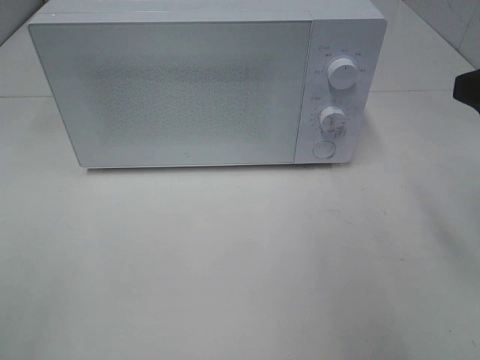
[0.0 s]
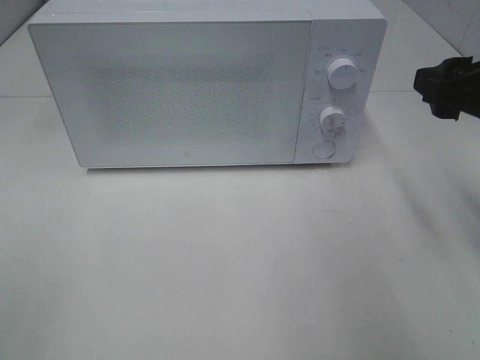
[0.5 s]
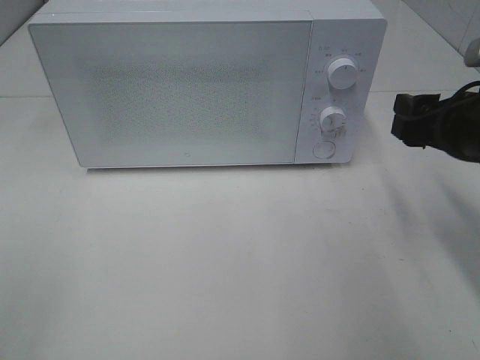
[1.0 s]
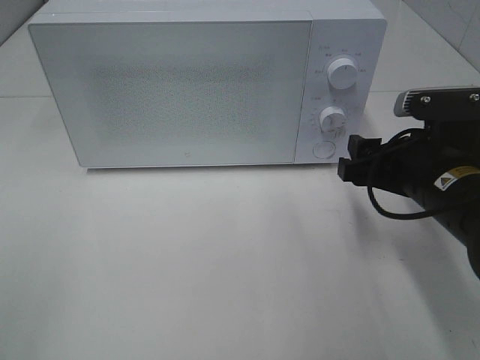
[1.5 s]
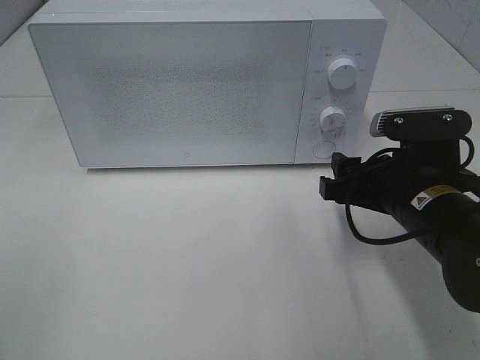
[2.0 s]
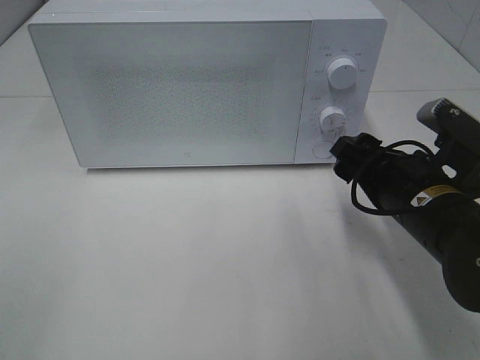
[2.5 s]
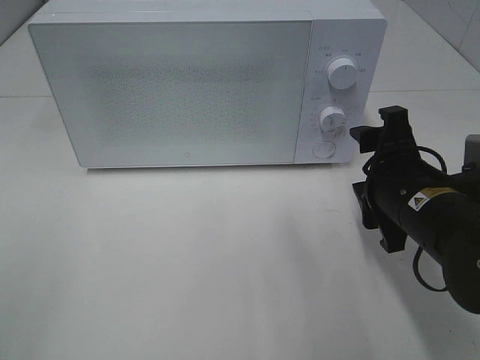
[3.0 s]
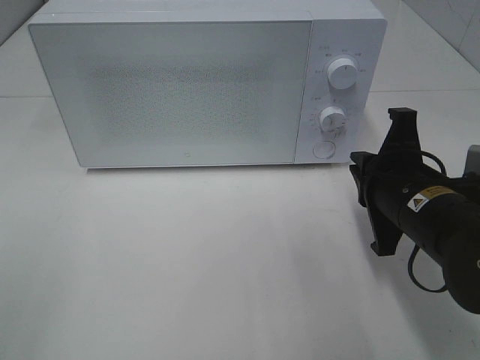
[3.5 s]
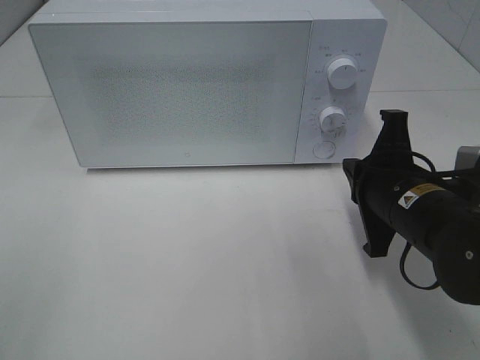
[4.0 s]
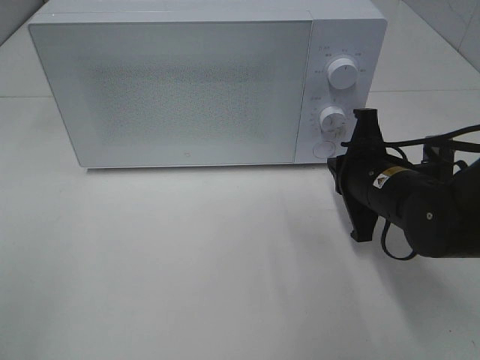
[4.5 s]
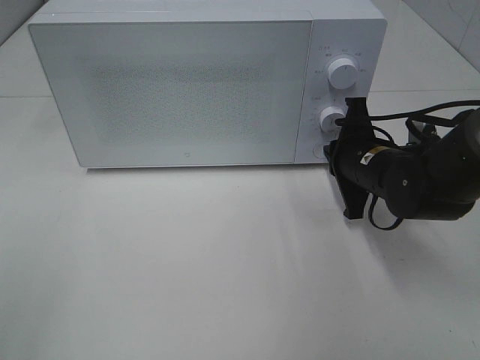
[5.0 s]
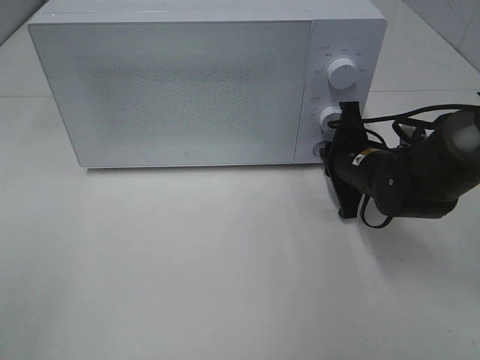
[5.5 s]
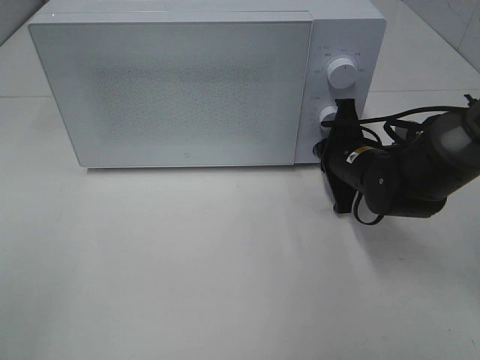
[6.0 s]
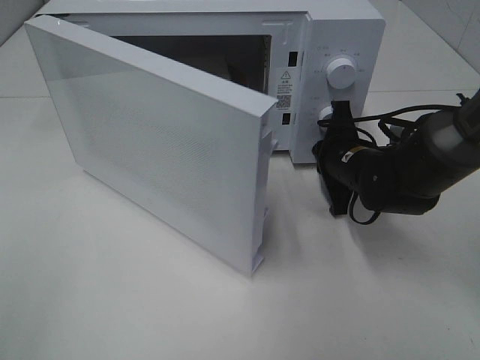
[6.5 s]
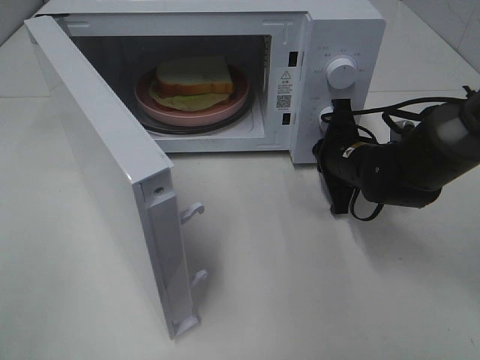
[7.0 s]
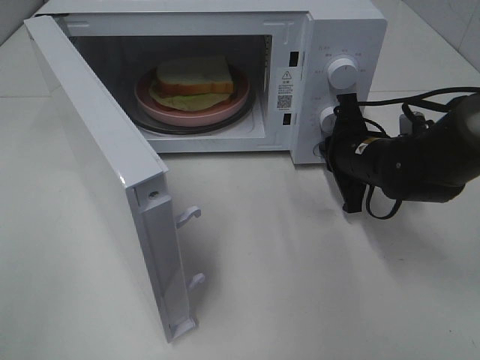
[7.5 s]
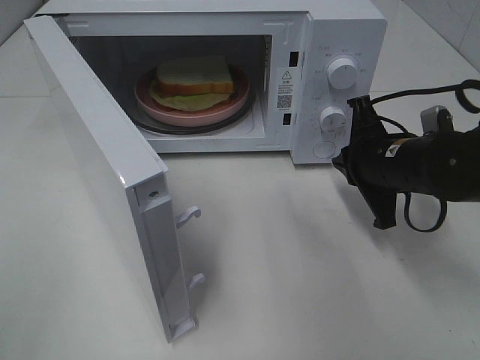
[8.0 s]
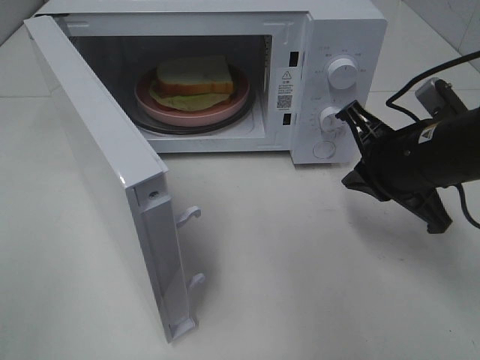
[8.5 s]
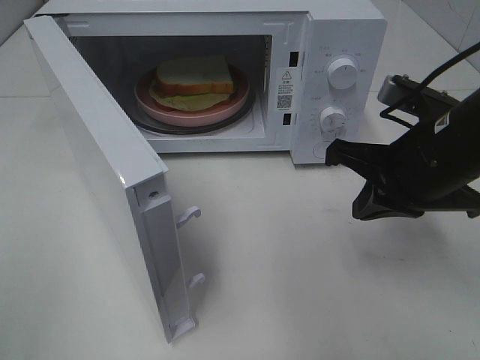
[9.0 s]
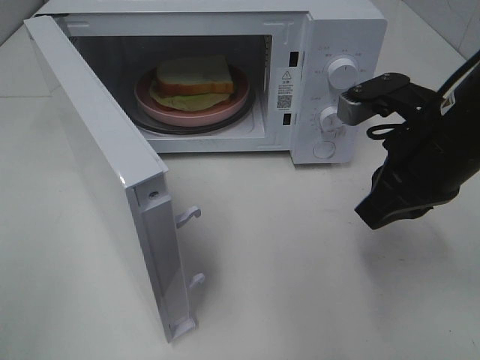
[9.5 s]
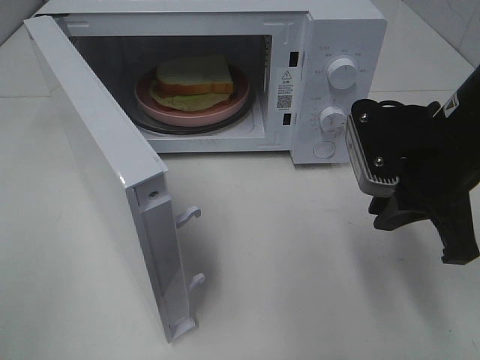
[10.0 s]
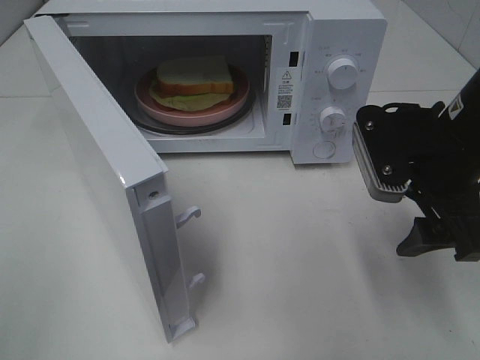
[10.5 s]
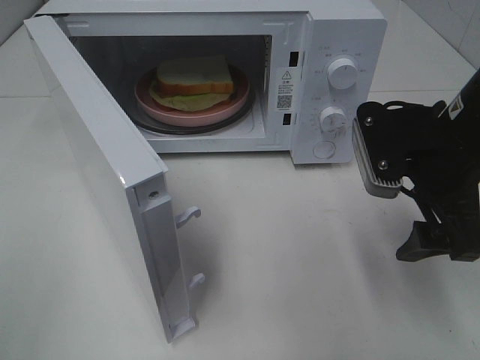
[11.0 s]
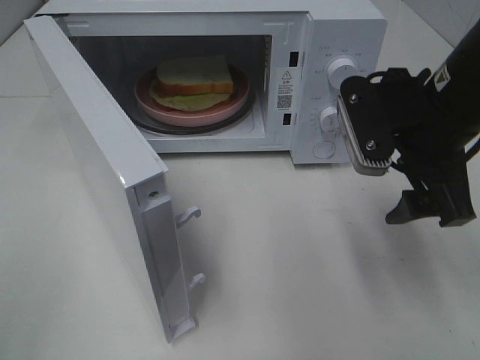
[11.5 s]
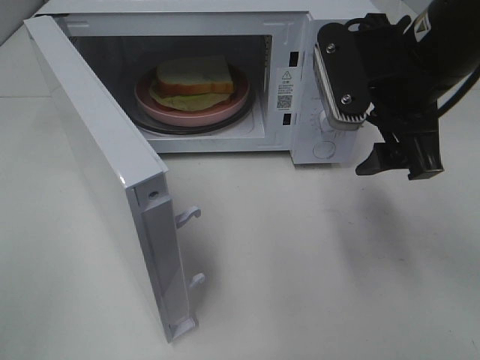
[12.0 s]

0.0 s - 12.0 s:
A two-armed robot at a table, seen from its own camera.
Task of the whole recording: Heat Sandwich.
Step, 0.0 s - 7.5 s: Right hand: press the switch.
0.0 s - 2.0 s: The right gripper moves downward and to the left, approximately 15 cm.
2.0 s - 4.0 s: The right gripper closes its fingers.
4.0 s - 6.0 s: The right gripper goes approximately 10 cm forward.
6.0 s - 8.0 s: The right gripper travels backward by some 5 cm.
8.0 s - 10.0 s: The right gripper is displaced upward and backward by approximately 10 cm.
10.0 s - 12.0 s: The right gripper is displaced upward by roughly 5 cm, and opens up.

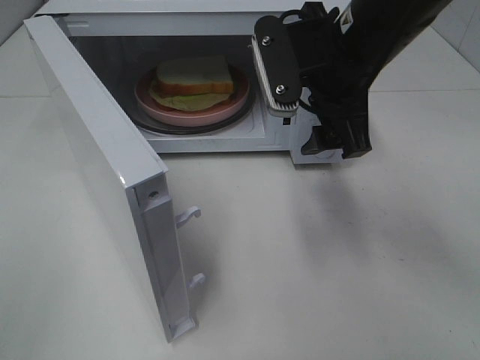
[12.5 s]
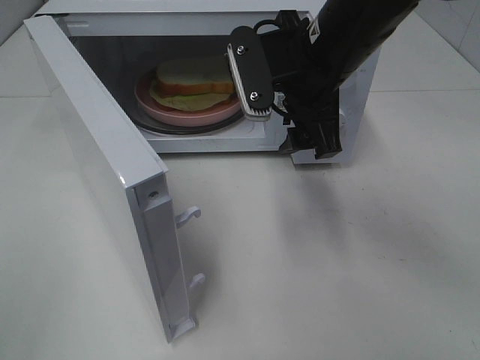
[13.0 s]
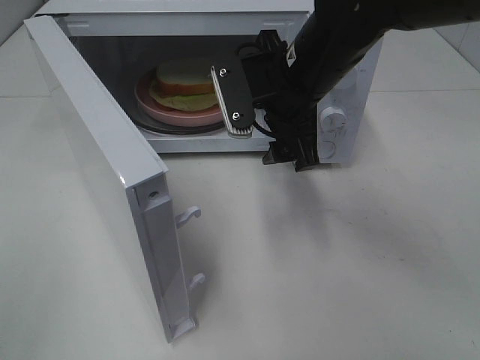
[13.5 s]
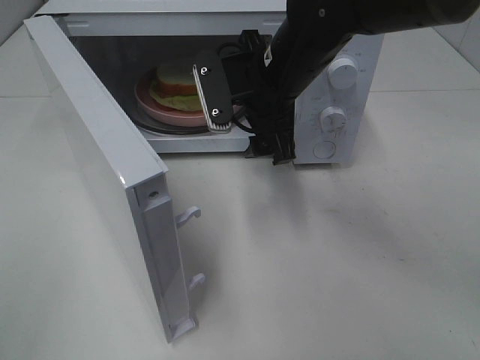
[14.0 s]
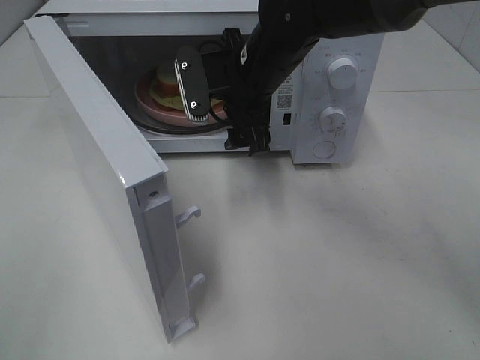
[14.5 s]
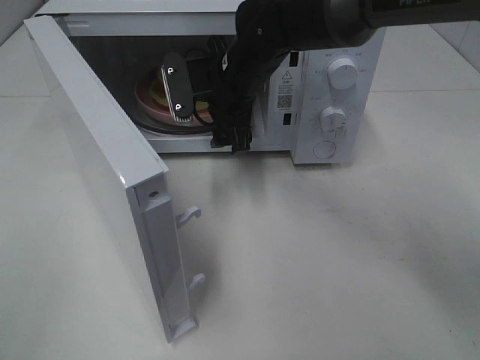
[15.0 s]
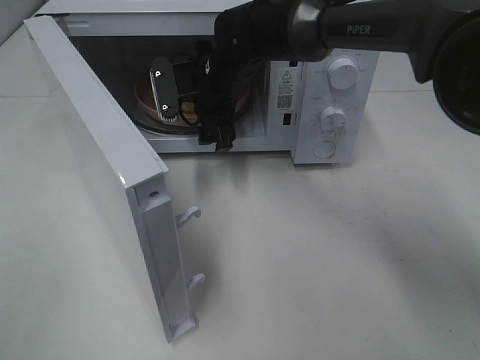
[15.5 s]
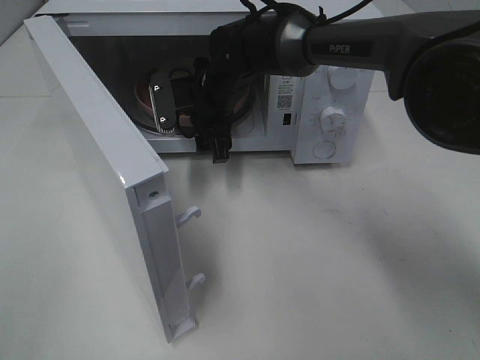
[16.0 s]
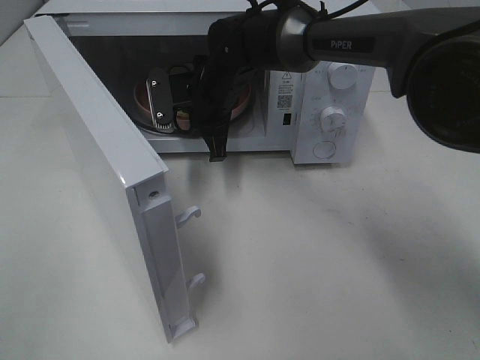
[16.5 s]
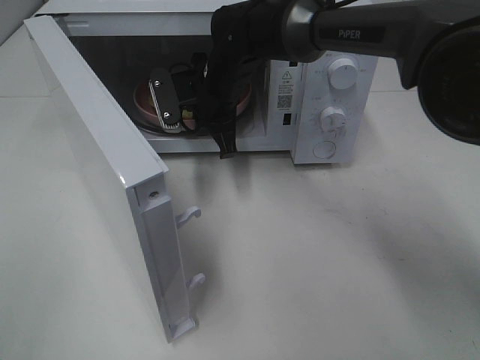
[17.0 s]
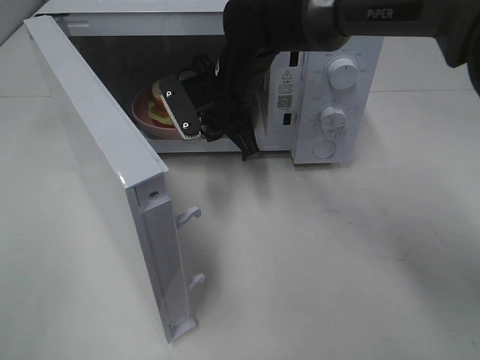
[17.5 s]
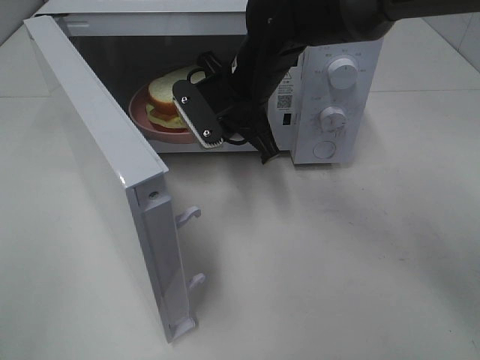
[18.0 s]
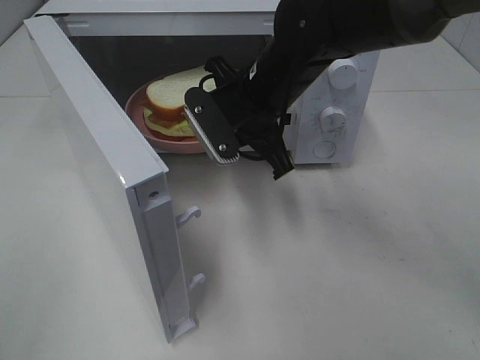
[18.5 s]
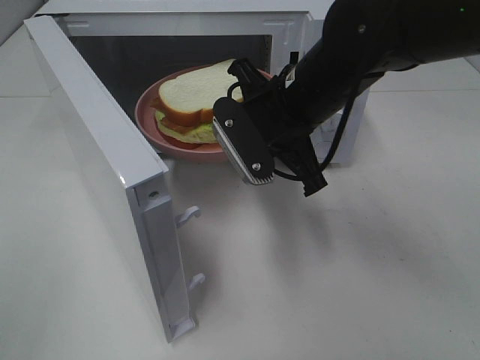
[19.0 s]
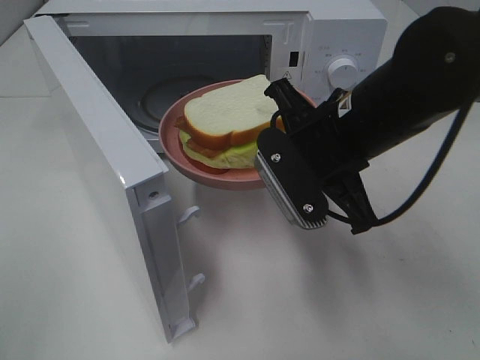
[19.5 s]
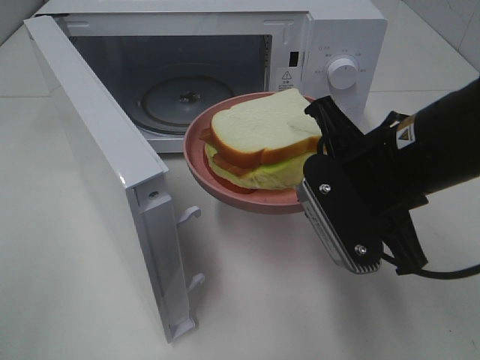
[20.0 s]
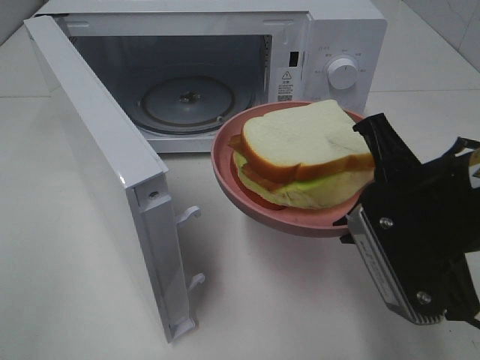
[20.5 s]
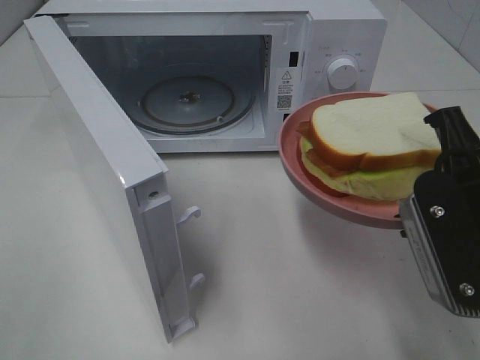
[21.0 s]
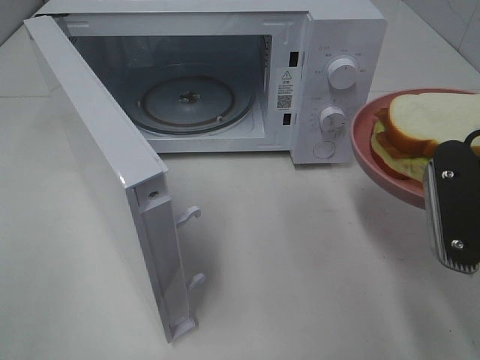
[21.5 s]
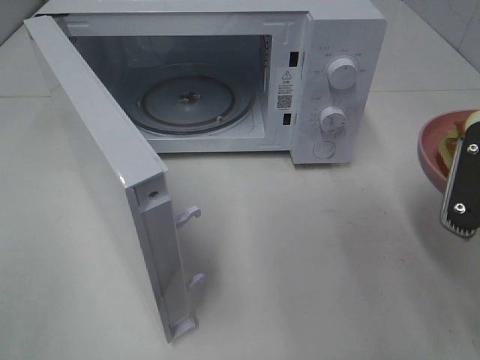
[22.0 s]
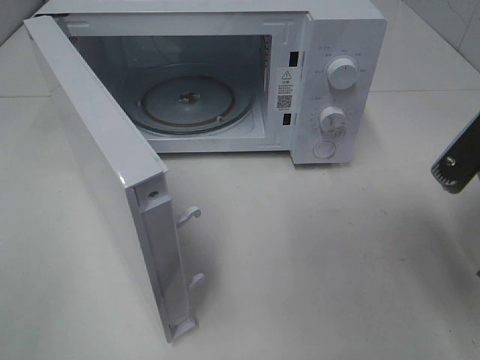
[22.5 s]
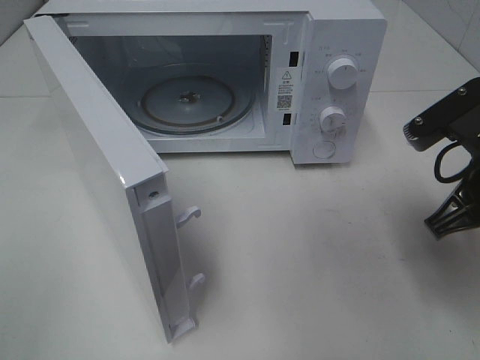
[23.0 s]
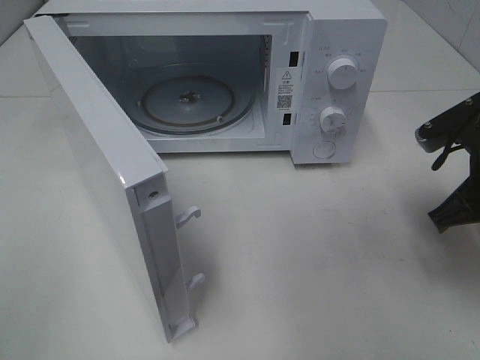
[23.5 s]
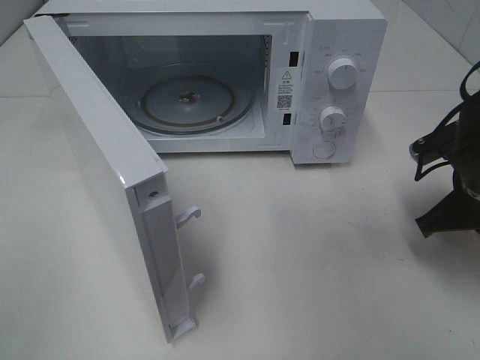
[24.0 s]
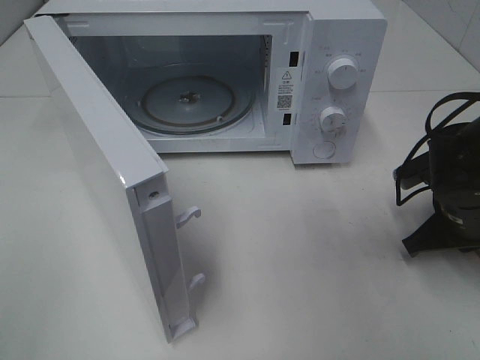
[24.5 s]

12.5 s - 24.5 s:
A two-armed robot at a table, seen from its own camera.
Task of the whole recording: Heat Sandwich.
Step, 12.5 s - 16.5 s: Right hand: grab the plate with the sandwich.
12.5 s - 14.5 s: The right gripper moves to the left, forward and downward, some 10 cm.
14.5 s - 16.5 s: The right gripper heads forward and downward, covering about 10 cm, and closes.
16.5 s - 18.5 s: The right gripper is displaced backward and to the right by roughly 10 cm.
18.5 s - 20.5 s: The right gripper goes approximately 20 cm backward and to the right.
20.5 s - 22.5 s: The right gripper is displaced to the right by about 5 cm.
22.5 s - 24.5 s: The right gripper shifts approximately 15 cm downward and forward.

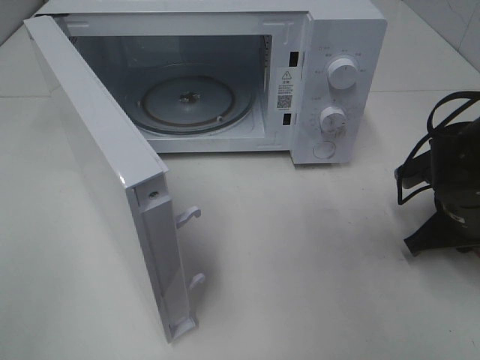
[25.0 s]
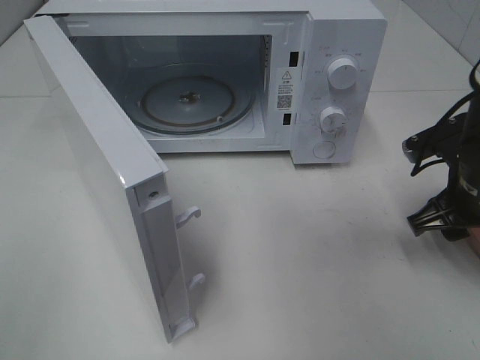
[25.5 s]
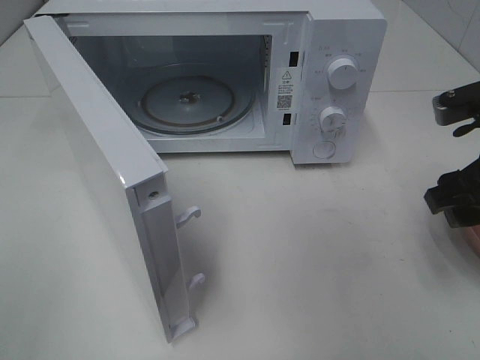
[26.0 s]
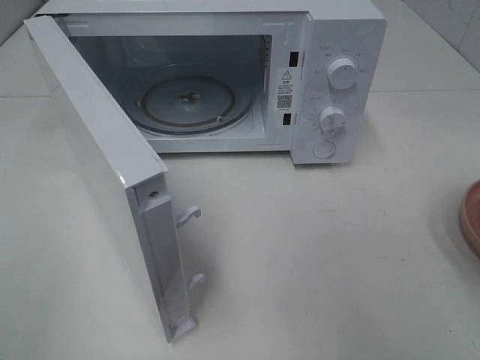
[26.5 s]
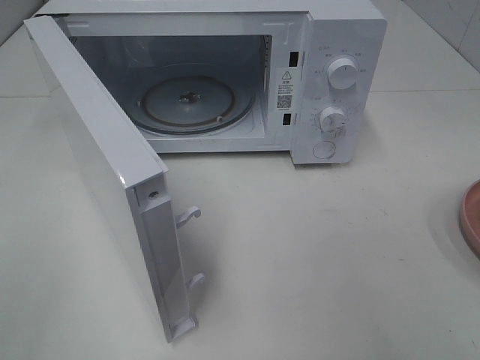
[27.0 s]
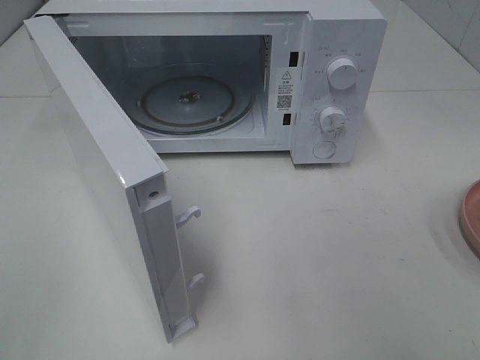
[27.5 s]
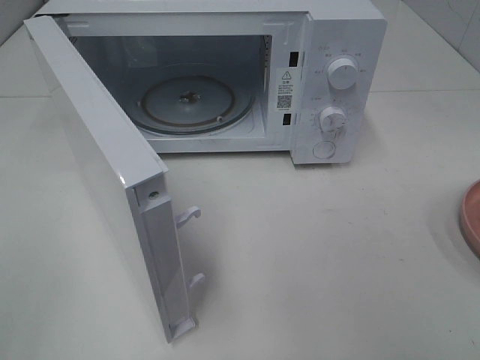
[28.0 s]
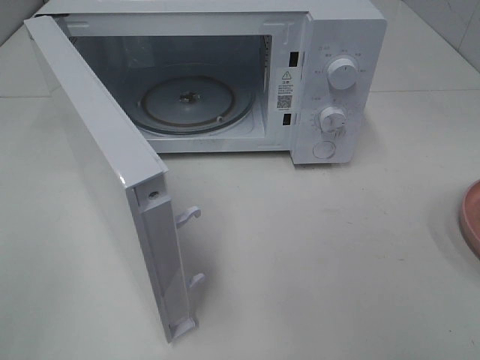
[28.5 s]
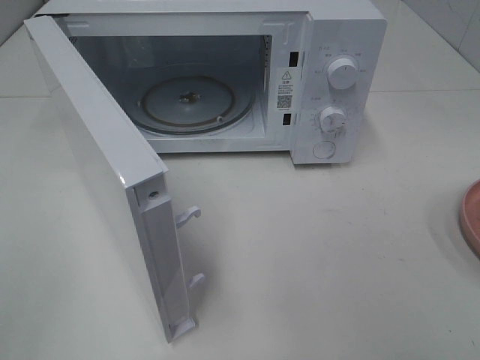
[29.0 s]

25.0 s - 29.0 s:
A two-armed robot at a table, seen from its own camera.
Task of the whole recording: Heat Sandwich.
25.0 s - 27.0 s: The right gripper goes roughly 30 cm upward and backward, and opens up.
